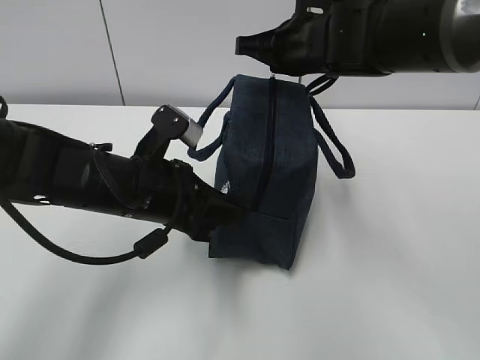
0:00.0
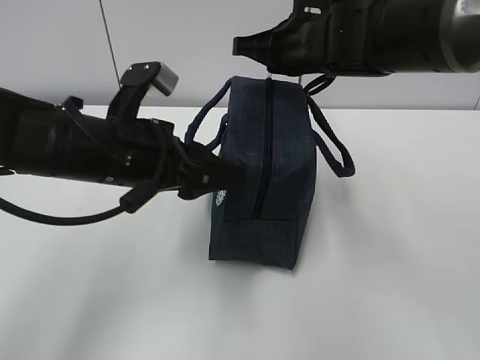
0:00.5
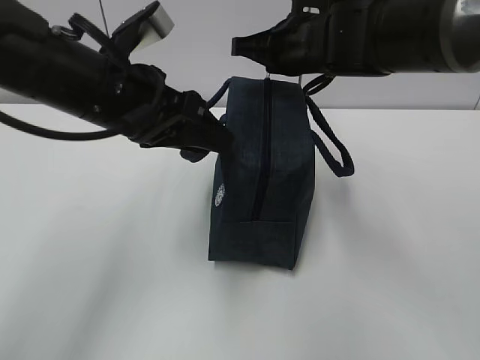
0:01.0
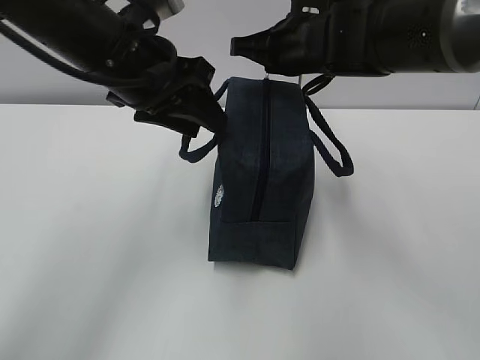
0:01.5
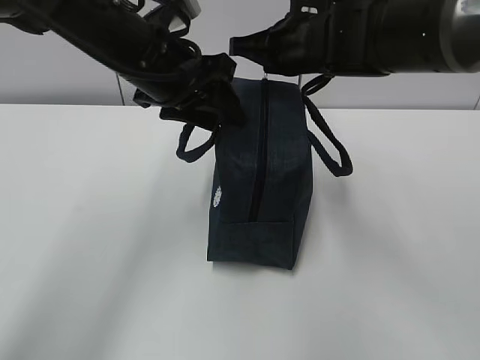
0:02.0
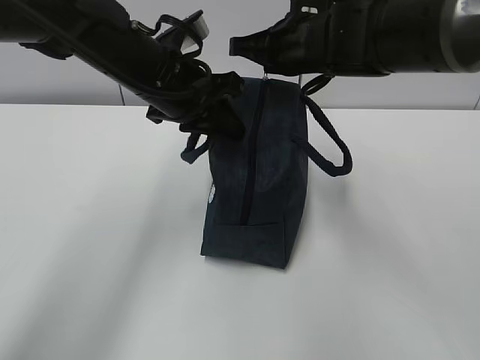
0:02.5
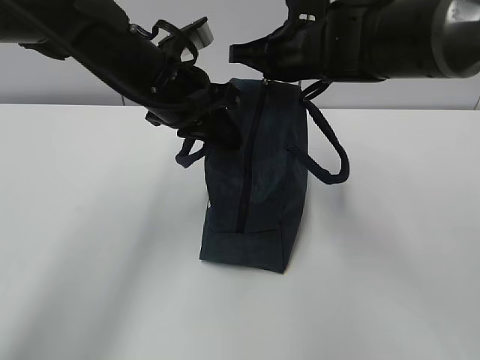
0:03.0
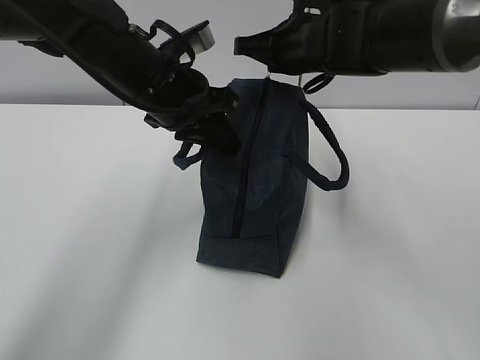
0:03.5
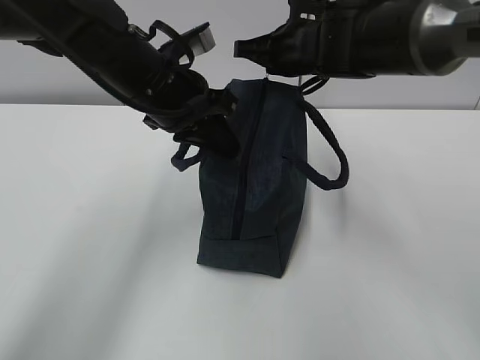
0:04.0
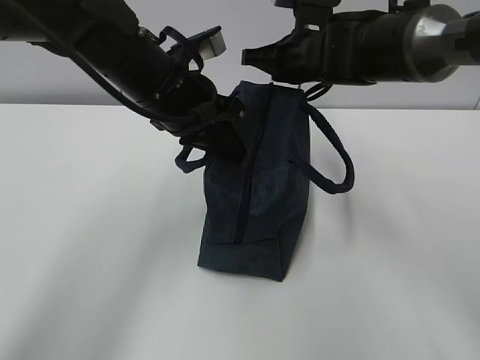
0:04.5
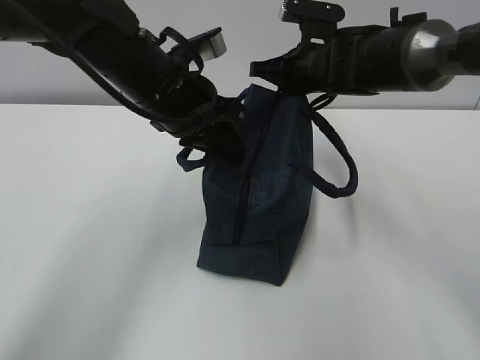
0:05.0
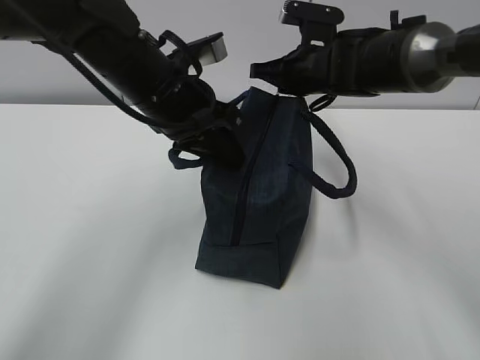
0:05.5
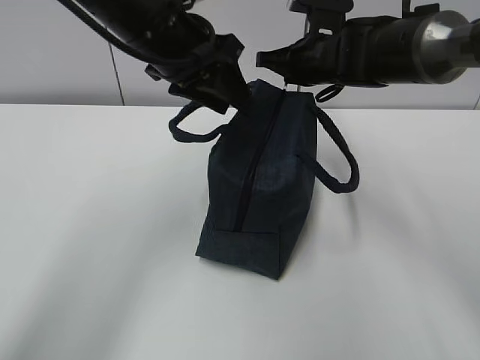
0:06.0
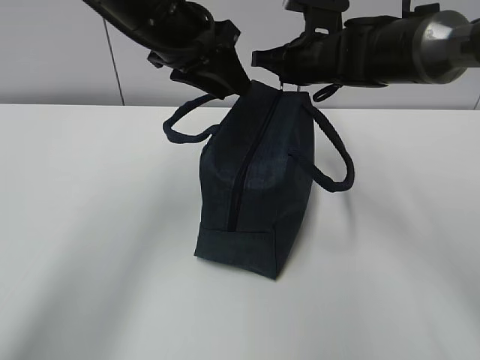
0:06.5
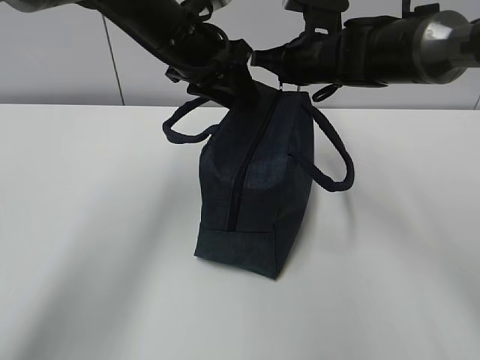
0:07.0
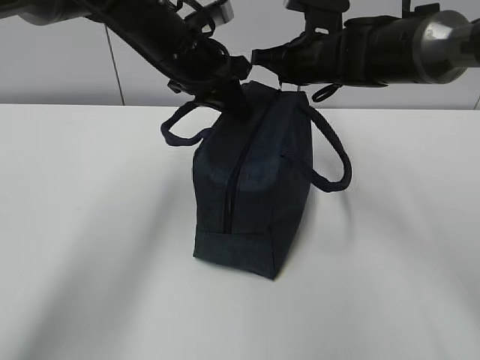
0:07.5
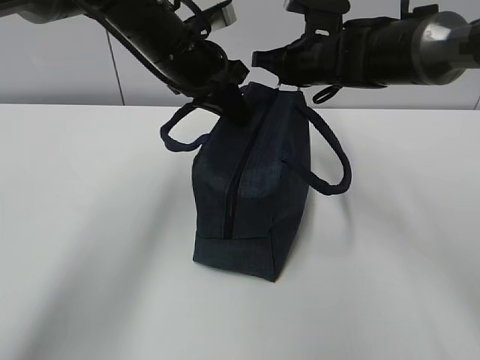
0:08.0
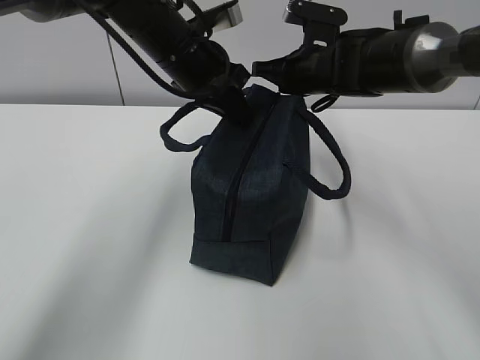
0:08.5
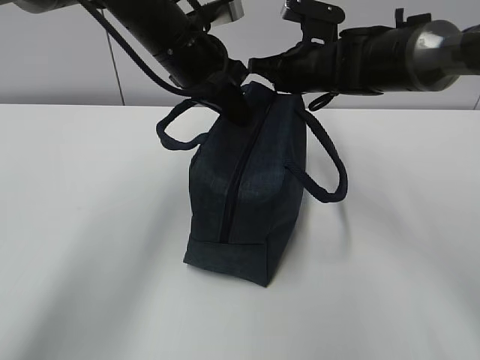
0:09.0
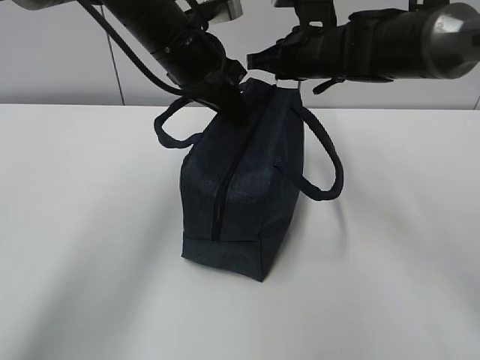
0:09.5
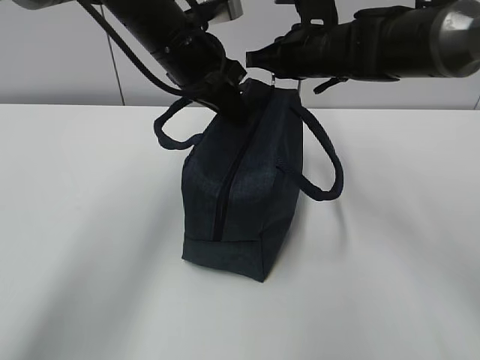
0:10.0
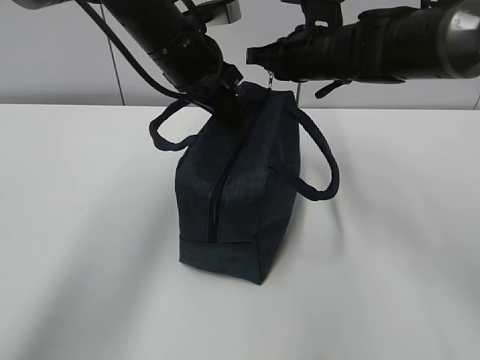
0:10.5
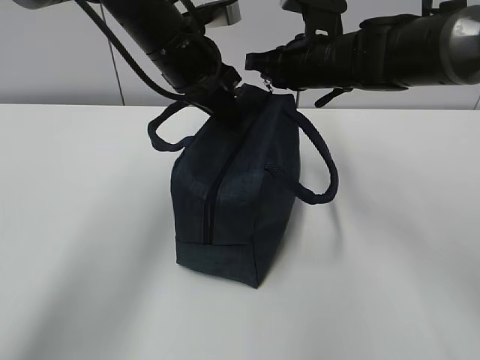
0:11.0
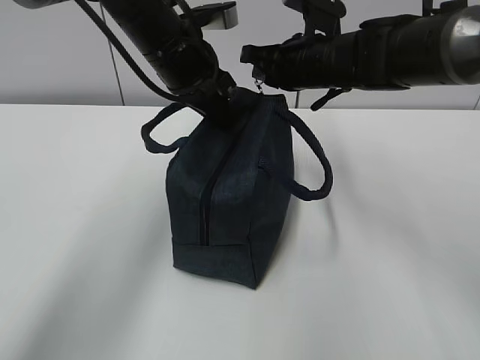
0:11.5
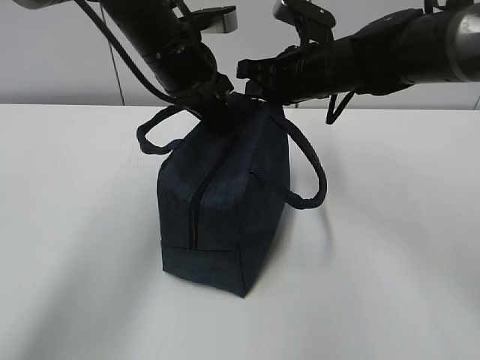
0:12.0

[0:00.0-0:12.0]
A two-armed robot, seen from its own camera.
Step, 0:00.0 to 0:02.0: Grab the lunch bag with your left hand.
Step, 0:02.5 to 0:06.0: Pull the zipper with your right hand.
0:00.0 to 0:02.0: The left gripper moves upward and forward, roughly 15 cm, and opens up.
0:02.0 to 0:04.0: The left gripper closes up.
0:04.0 to 0:06.0: The left gripper shifts about 5 cm upward, and opens. Meanwhile the right gripper changes place by roughly 5 cm.
0:06.0 to 0:08.0: The left gripper goes roughly 5 cm forward, and closes up.
0:08.0 to 0:10.0: The grippers move only a little.

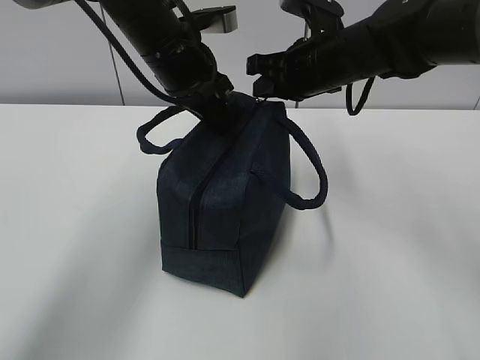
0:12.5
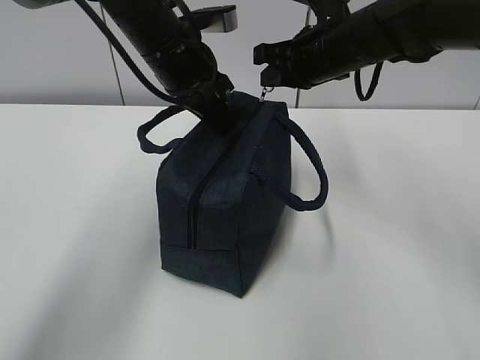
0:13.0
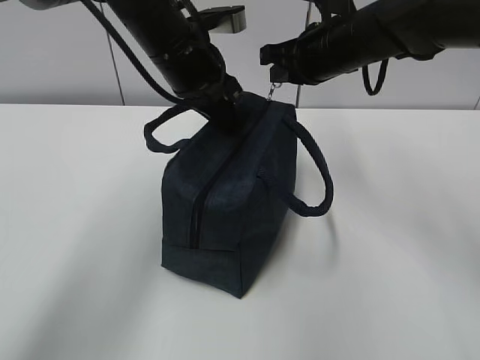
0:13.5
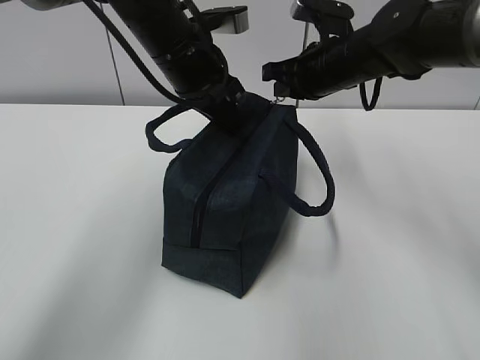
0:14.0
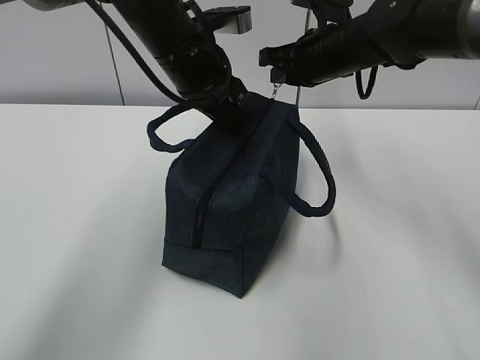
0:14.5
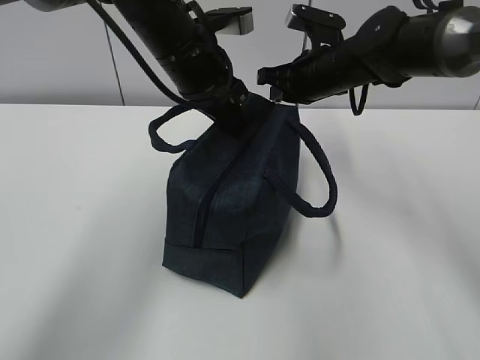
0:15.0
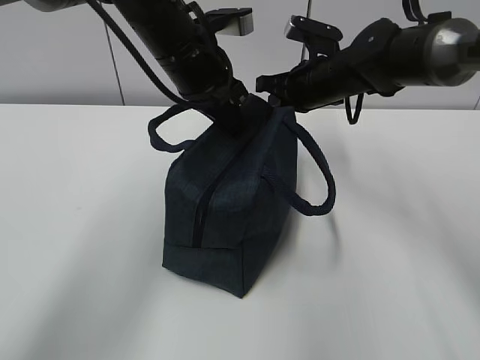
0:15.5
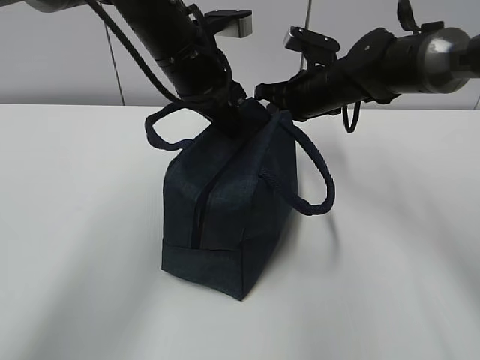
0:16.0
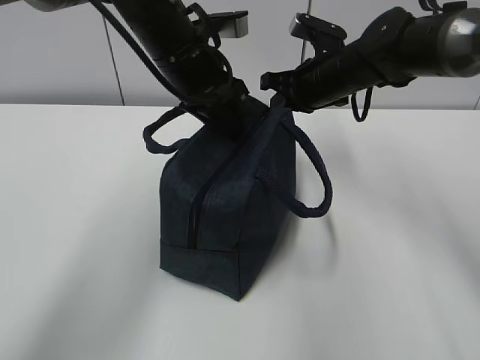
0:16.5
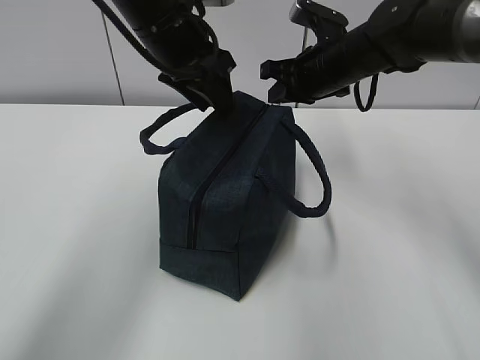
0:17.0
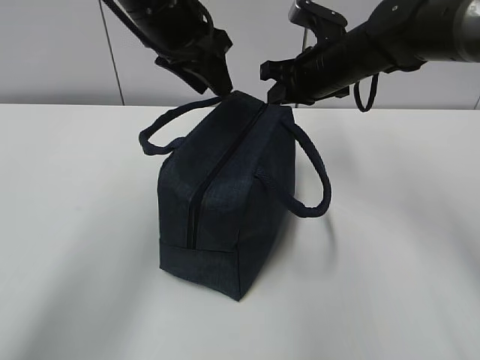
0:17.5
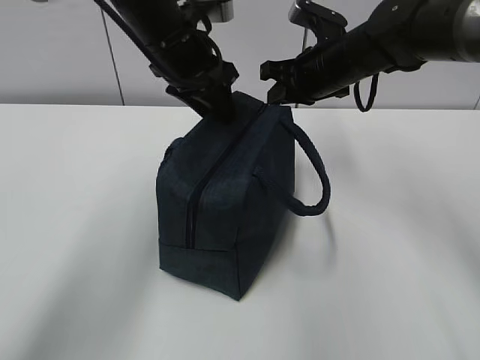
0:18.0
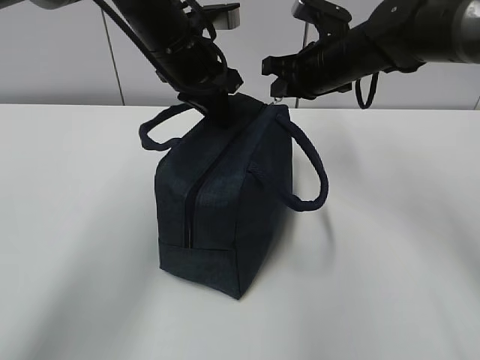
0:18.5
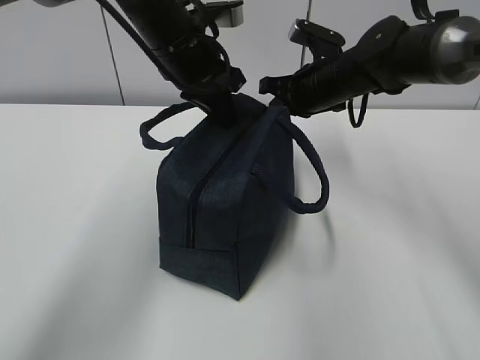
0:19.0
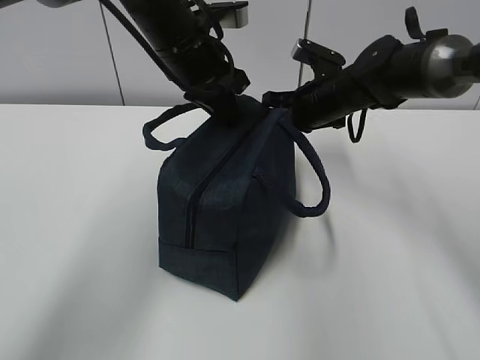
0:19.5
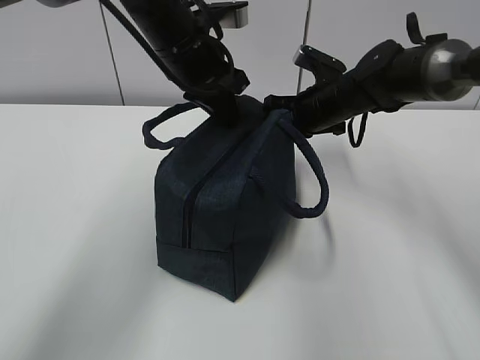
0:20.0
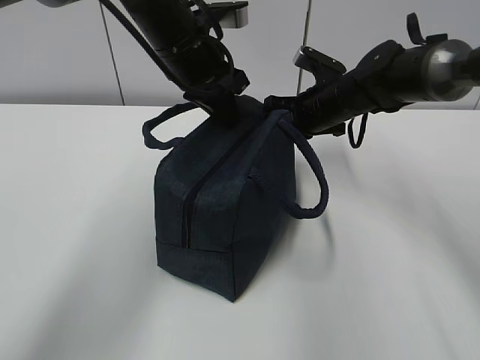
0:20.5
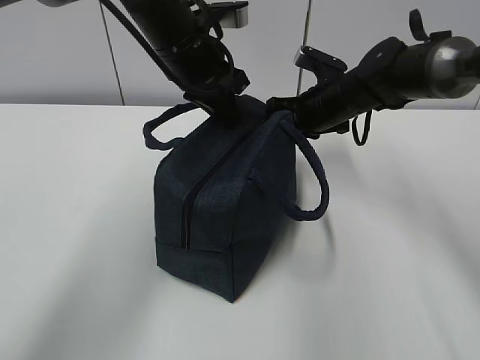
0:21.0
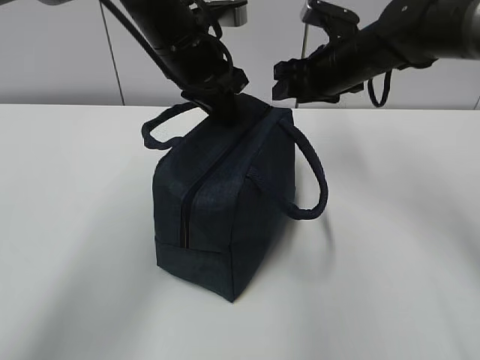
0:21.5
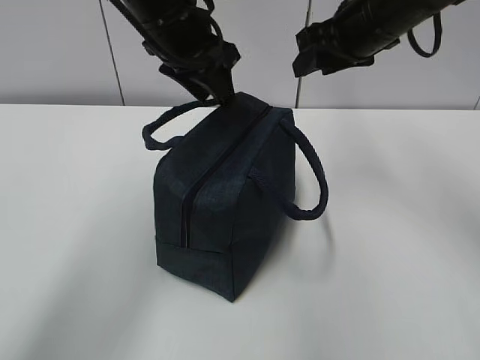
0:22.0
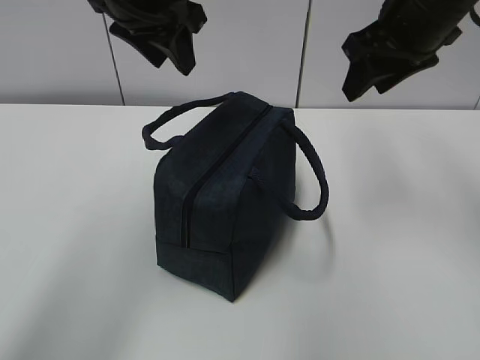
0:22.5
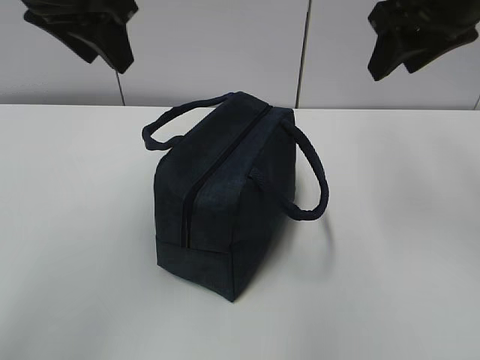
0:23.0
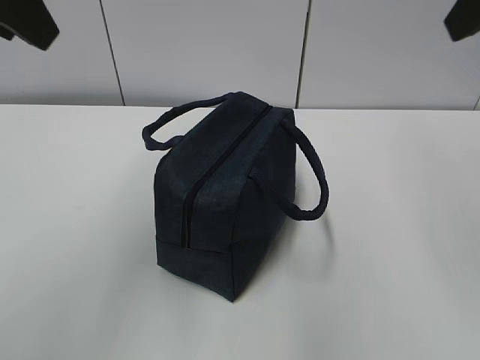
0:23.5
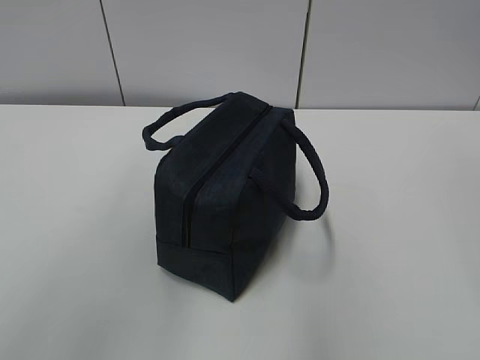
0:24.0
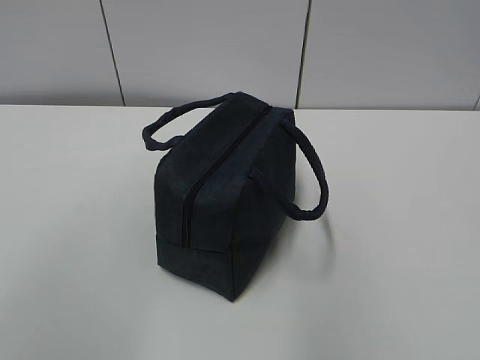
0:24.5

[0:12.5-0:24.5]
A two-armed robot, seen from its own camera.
0:12.5 to 0:14.5: The grippers stay close to where they were, moving slightly.
0:14.5 to 0:16.5: The left gripper opens up.
0:16.5 to 0:18.5: The left gripper closes up.
0:18.5 to 0:20.5: The right gripper travels downward by roughly 5 cm.
0:20.5 to 0:22.5: The left gripper goes approximately 10 cm upward, and opens its fingers; the right gripper moves upward and backward, about 20 cm, and opens up.
0:22.5 to 0:24.5: The left gripper is displaced backward, to the left and upward by roughly 35 cm. Meanwhile the right gripper travels backward by roughly 35 cm.

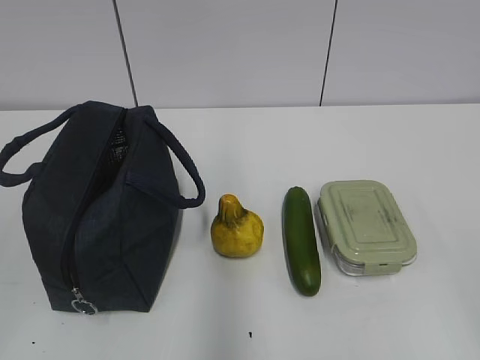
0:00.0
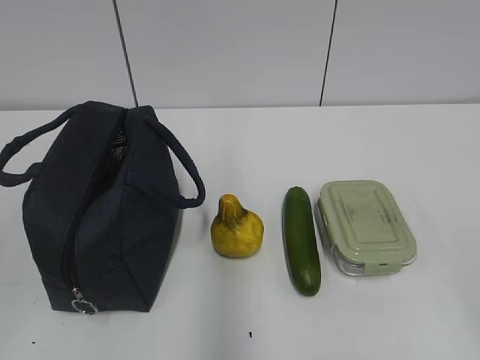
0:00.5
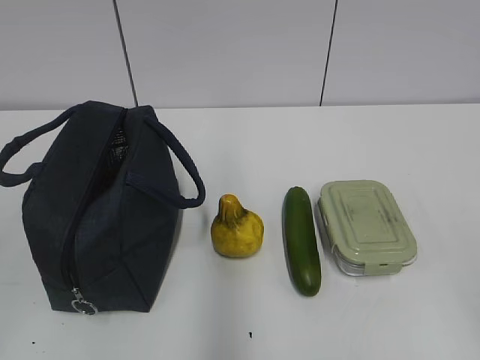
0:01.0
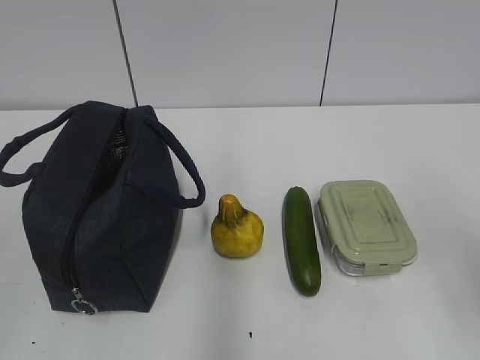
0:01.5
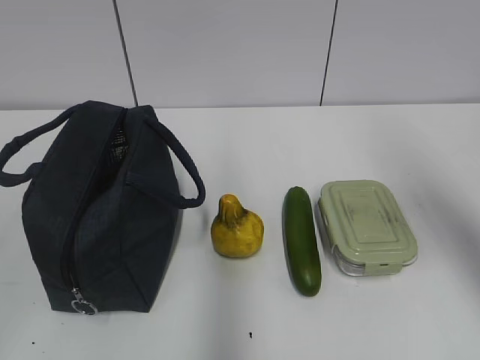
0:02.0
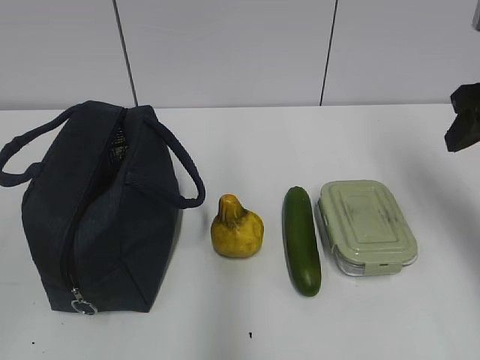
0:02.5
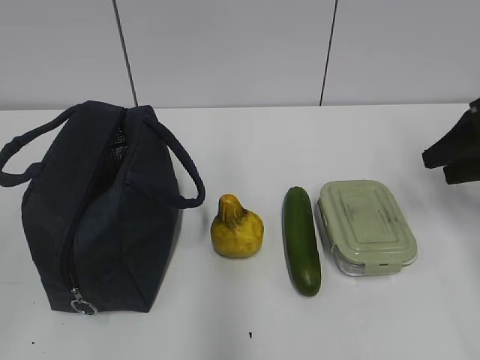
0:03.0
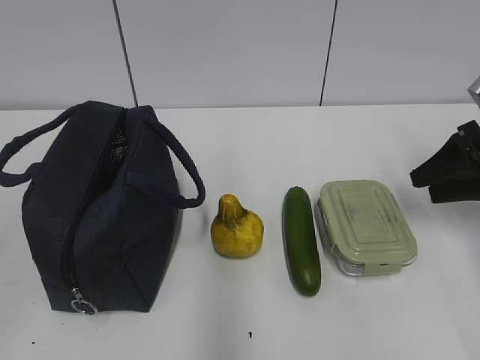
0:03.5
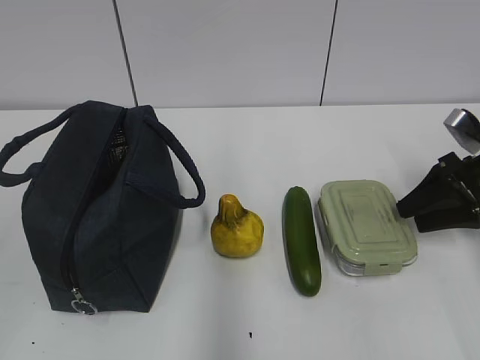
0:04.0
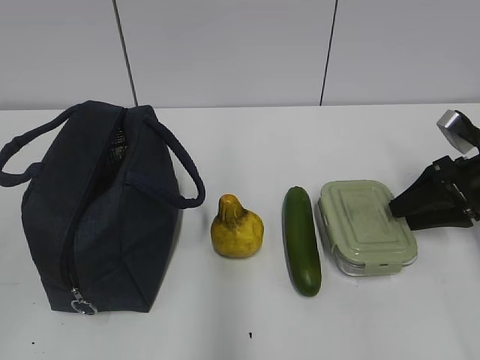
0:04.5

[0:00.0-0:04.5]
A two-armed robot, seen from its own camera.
0:02.0 to 0:04.5: The right gripper is displaced downward and forward by roughly 20 cm.
